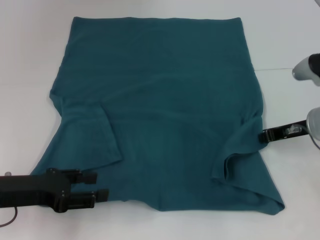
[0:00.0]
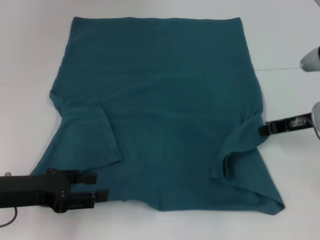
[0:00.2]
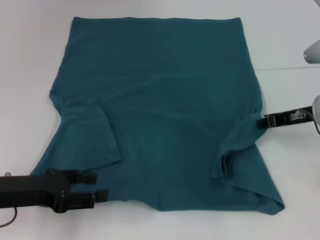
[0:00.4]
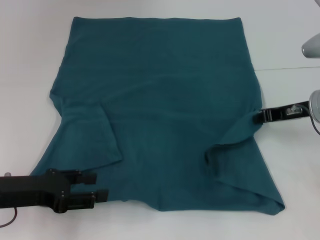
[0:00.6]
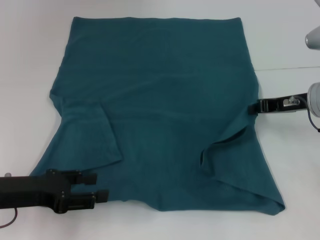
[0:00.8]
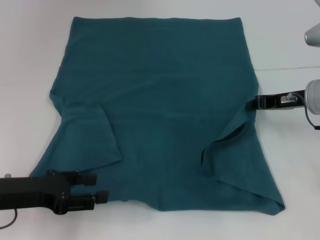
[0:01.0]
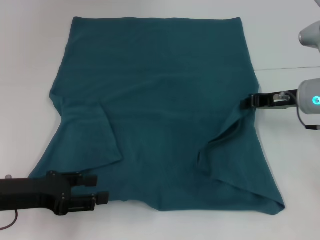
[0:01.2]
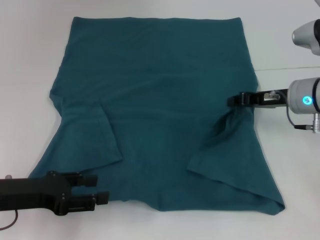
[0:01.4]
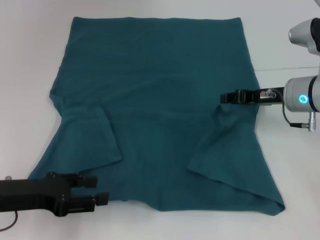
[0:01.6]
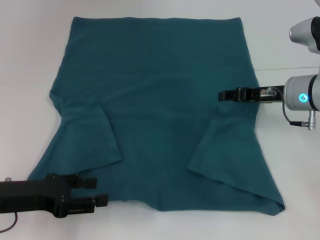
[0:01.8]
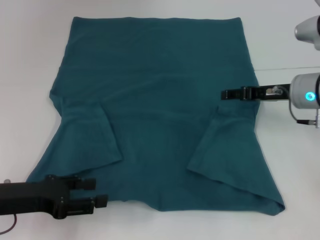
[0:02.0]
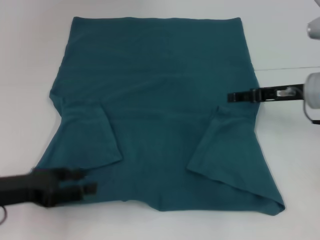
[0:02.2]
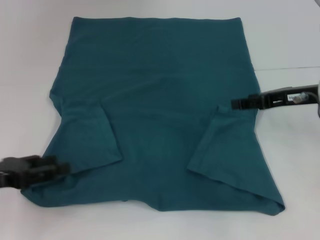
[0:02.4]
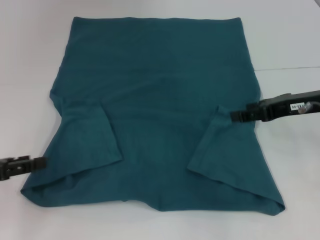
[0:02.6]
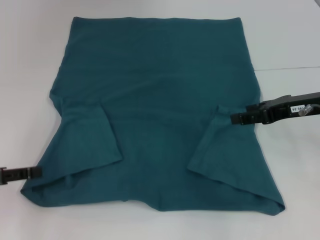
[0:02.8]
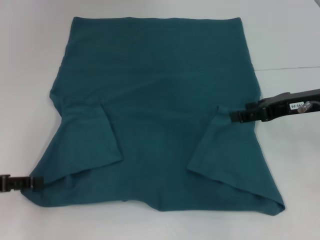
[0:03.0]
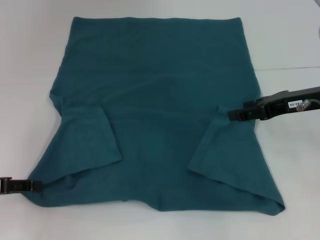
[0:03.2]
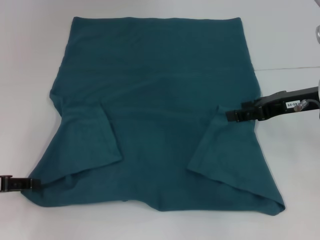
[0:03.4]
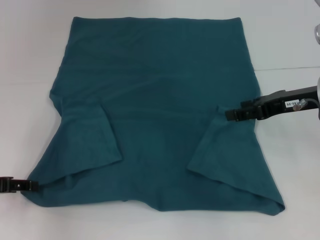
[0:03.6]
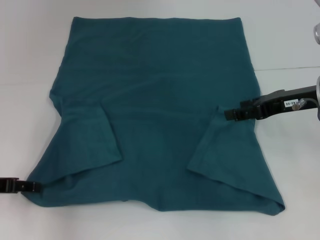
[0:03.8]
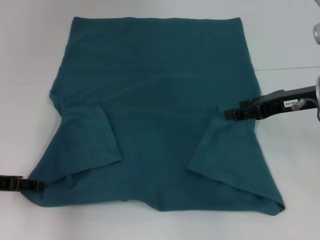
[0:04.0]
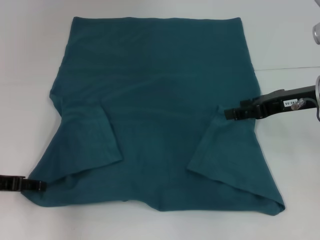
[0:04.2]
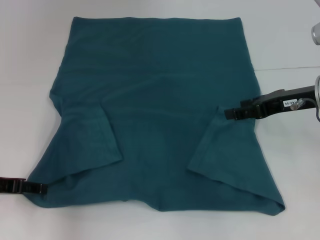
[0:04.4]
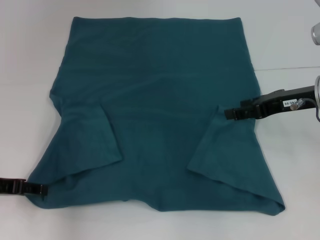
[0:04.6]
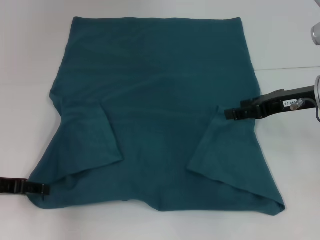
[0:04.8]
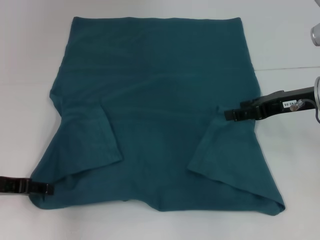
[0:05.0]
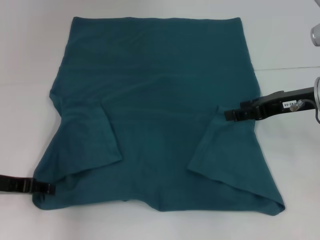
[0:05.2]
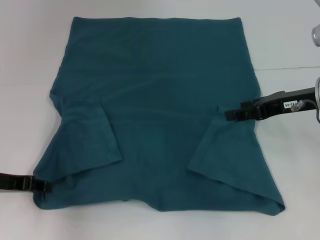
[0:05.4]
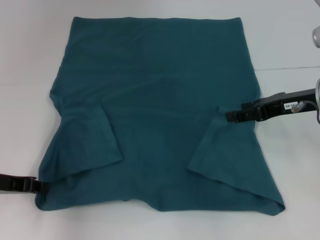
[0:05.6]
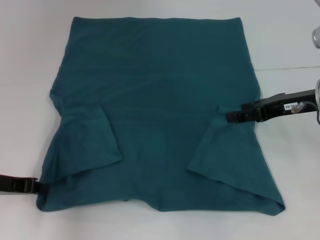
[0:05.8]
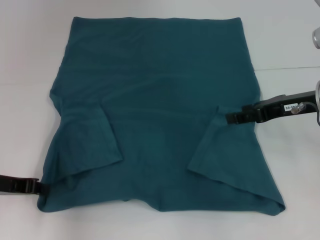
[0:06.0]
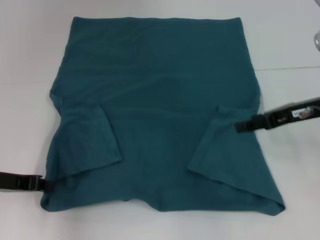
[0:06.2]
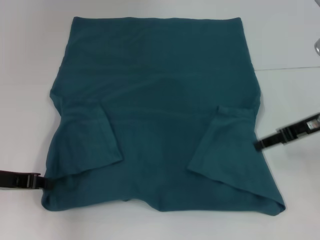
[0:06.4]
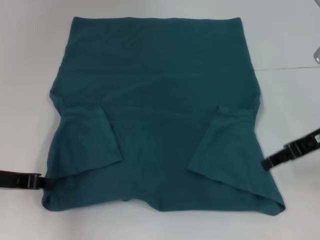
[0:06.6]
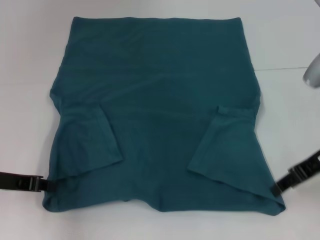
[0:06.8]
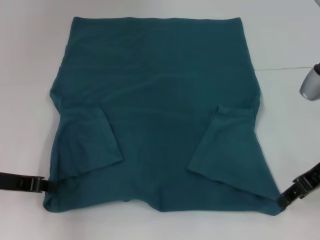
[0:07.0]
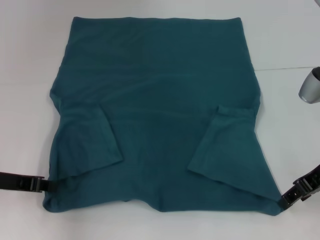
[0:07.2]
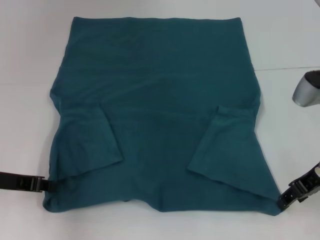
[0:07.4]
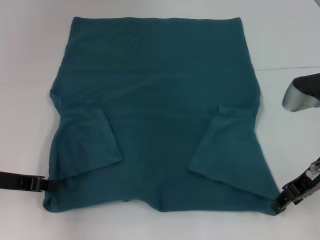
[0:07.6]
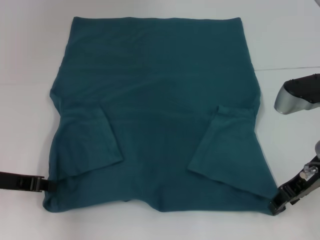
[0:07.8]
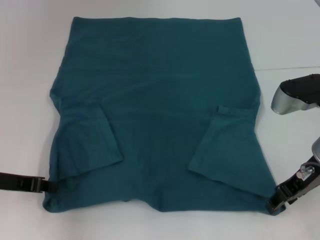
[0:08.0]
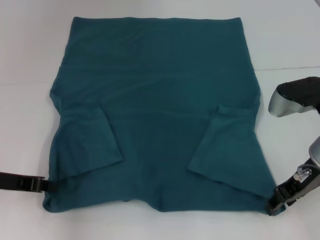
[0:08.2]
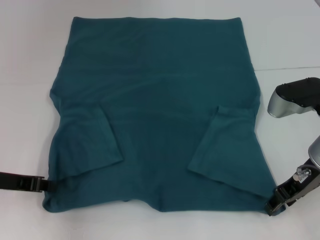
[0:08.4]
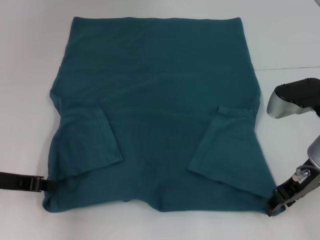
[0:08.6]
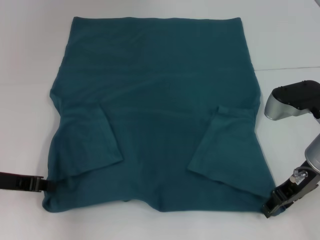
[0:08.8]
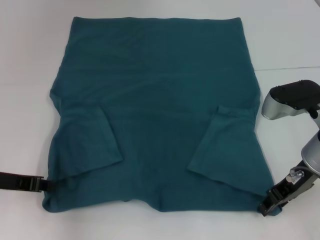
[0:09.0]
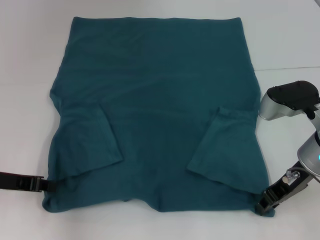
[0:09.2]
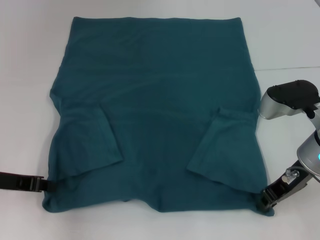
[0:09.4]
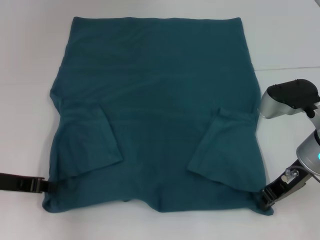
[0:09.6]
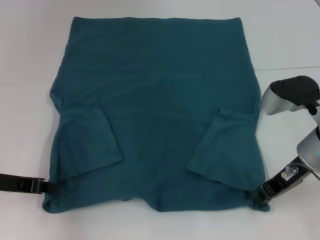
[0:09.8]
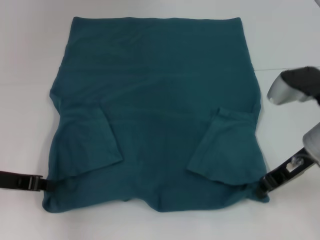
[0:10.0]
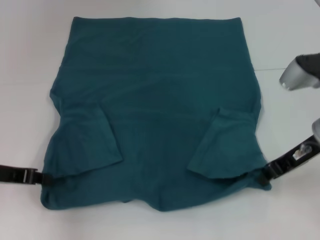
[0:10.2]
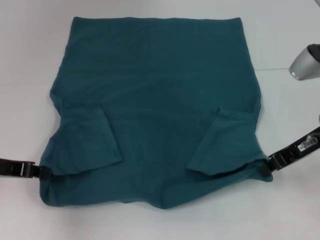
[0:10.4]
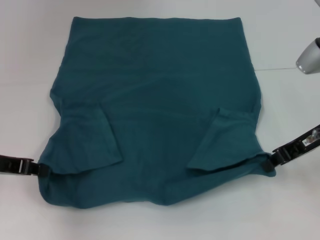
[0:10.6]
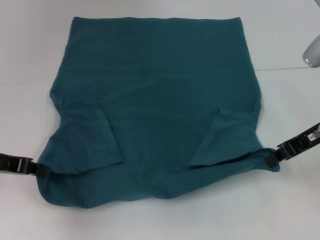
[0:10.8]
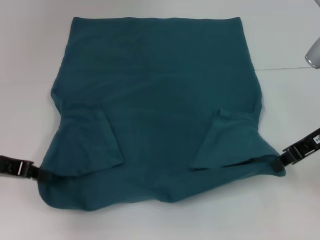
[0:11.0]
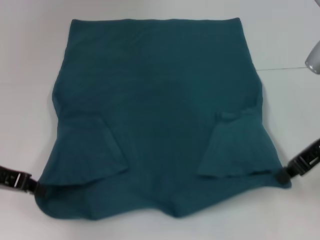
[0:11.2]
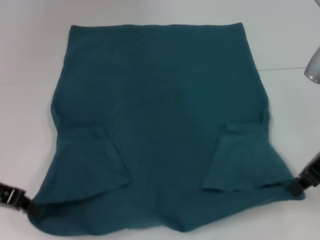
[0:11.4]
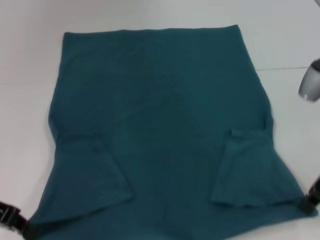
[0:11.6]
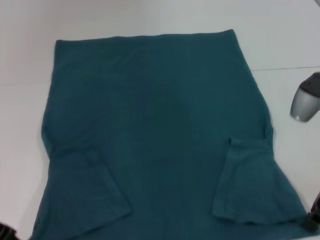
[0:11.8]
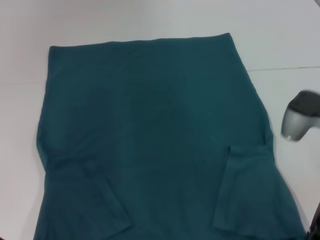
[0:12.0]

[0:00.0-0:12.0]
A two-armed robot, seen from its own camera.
Step, 0:00.0 to 0:02.0: Fold the bottom right sleeve to the right.
Step, 0:02.2 to 0:06.0: Grab the bottom left corner with your left hand.
Step, 0:06.2 to 0:09.8: Grab the bottom right corner with your right hand.
0:00.0 to 0:01.6: The grippers stay close to where they were, moving slightly.
0:01.6 to 0:03.0: The left gripper travels to the left by about 5 cm, while the right gripper shifts by some 5 cm, and opens.
0:03.0 to 0:04.4: The grippers make only small movements.
0:04.4 to 0:06.0: The left gripper closes.
0:07.6 to 0:09.0: The grippers move only a little.
0:09.0 to 0:10.4: The right gripper closes its fingers.

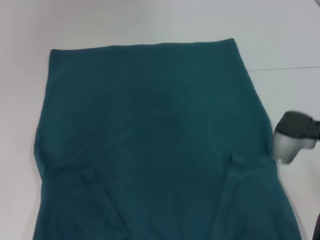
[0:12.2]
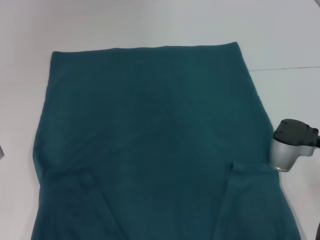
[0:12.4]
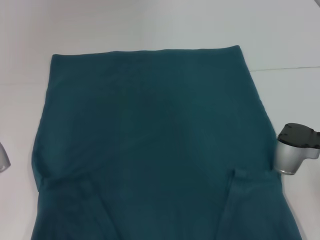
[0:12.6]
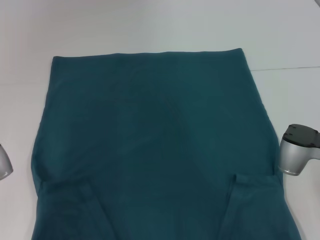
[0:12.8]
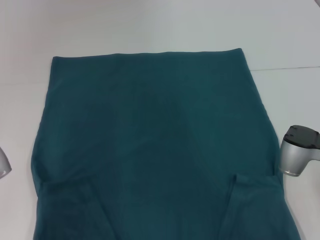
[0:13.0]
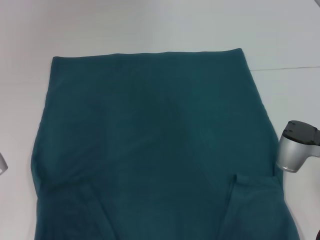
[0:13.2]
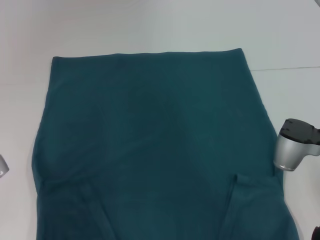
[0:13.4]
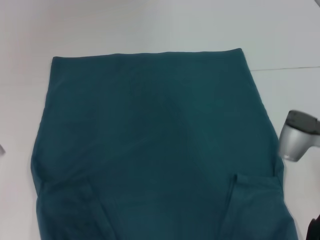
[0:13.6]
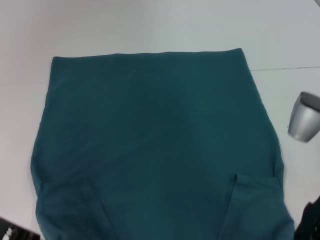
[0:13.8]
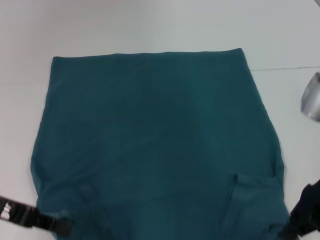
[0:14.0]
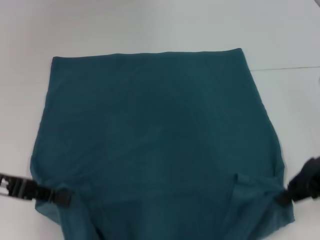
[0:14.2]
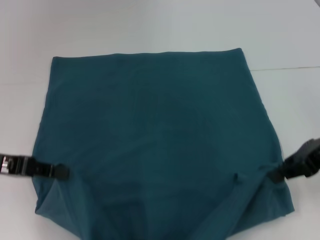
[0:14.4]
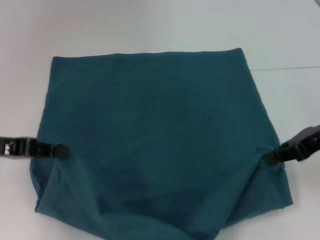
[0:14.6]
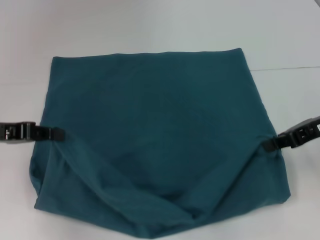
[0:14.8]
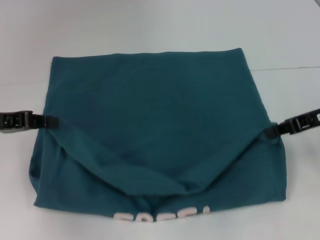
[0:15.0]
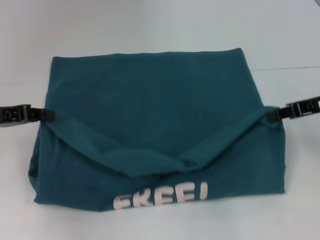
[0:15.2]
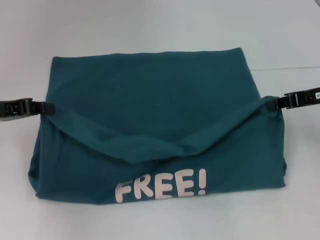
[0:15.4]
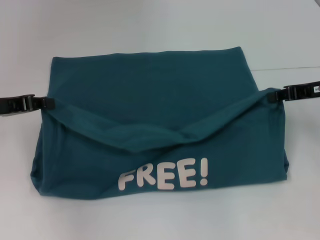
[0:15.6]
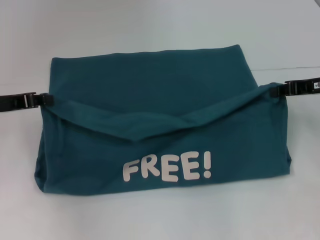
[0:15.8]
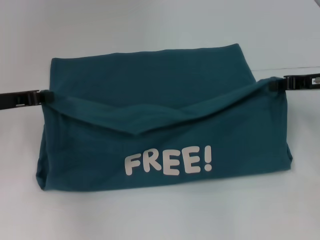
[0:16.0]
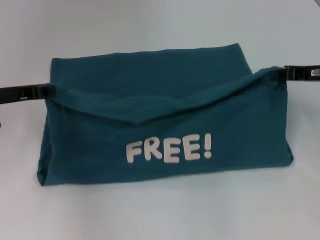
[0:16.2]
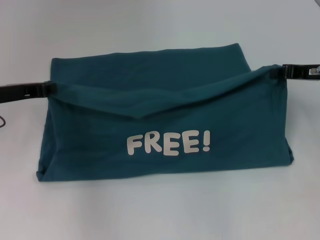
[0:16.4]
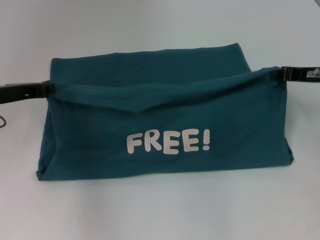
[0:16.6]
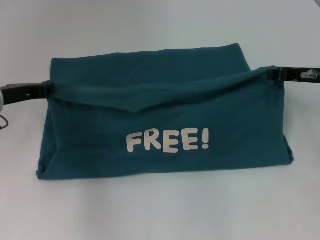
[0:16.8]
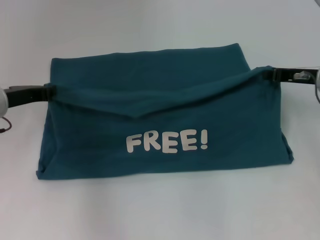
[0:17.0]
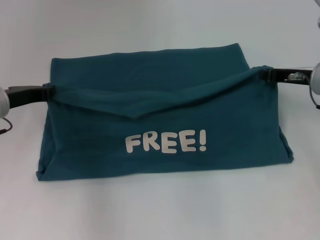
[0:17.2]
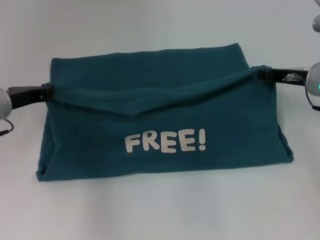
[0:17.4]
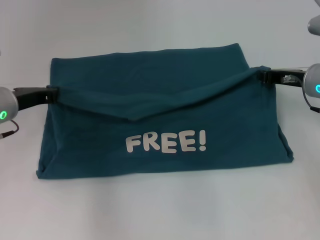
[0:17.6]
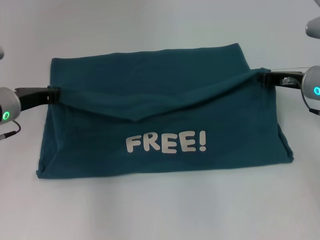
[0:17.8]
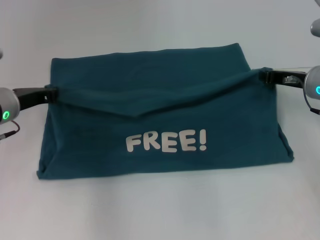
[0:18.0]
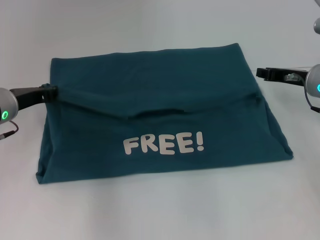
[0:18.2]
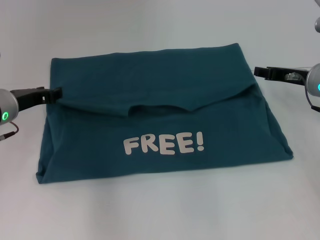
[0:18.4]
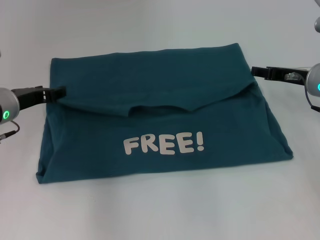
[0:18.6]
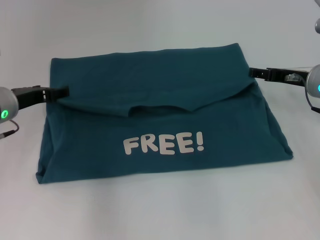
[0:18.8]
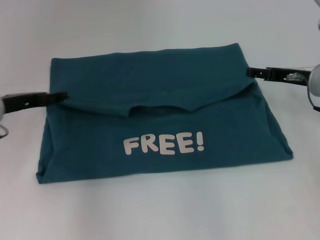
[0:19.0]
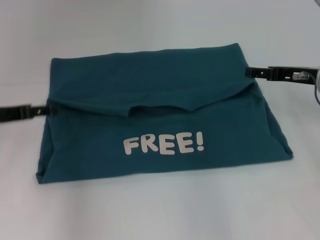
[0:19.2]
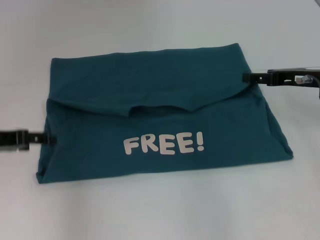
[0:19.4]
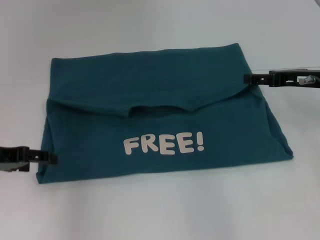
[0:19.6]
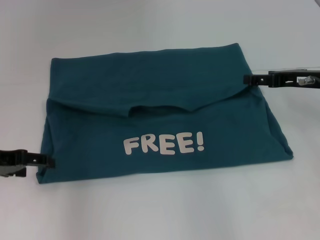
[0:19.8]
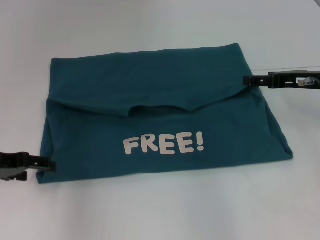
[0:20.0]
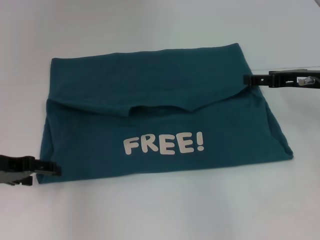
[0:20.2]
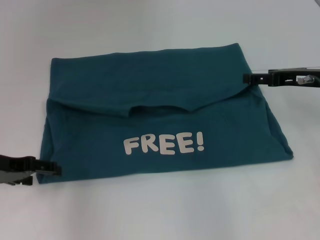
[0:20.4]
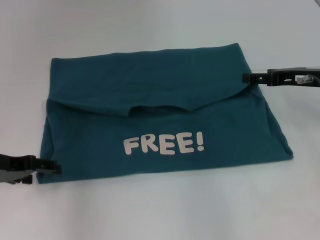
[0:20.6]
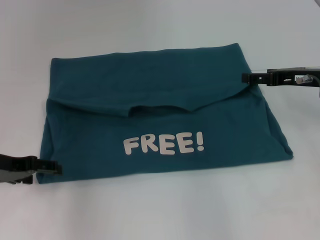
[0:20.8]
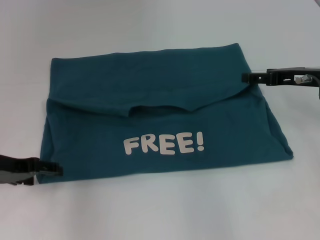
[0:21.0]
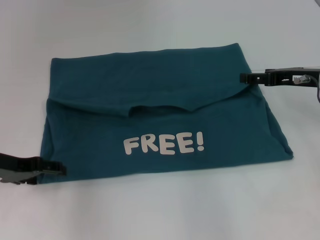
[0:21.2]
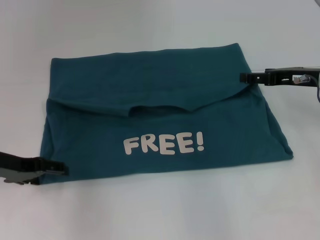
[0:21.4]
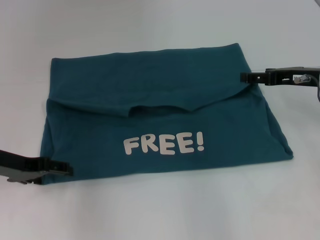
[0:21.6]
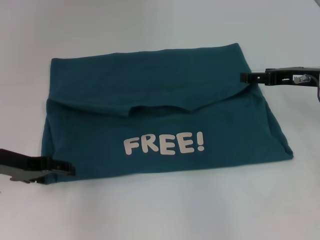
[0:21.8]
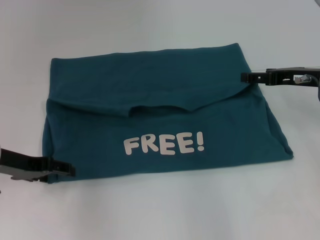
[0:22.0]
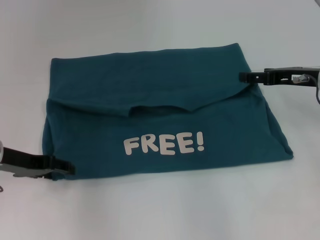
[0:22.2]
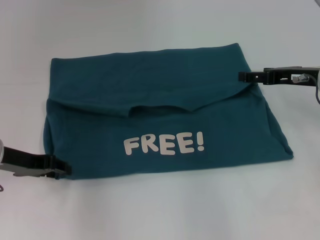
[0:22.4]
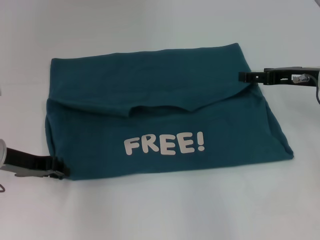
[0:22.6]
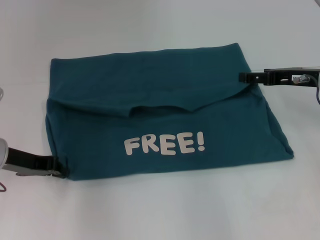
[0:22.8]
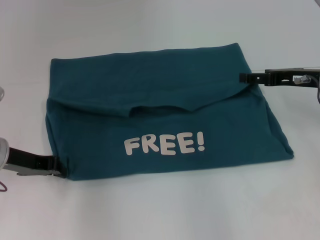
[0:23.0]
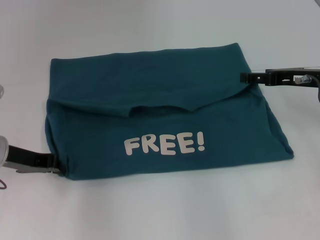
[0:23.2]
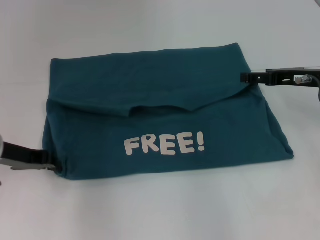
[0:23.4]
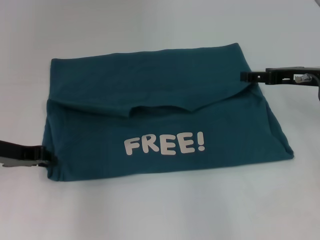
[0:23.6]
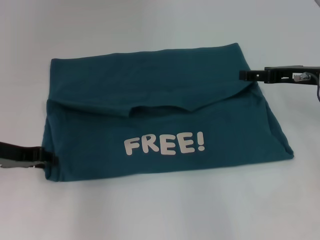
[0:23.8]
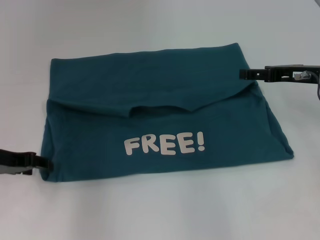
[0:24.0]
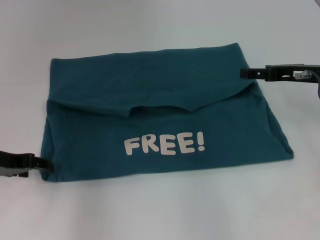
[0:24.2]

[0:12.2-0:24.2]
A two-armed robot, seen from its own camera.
Step, 0:12.2 to 0:18.4: Fold the clothes to the left.
Step, 0:12.2 to 0:18.4: Fold the clothes to the right.
0:13.8 to 0:15.2: The right gripper goes about 10 cm to the right and forward, while the left gripper heads forward, covering about 5 cm.
0:15.2 to 0:16.6: The right gripper moves about 5 cm. The left gripper shifts by roughly 5 cm.
0:16.6 to 0:18.2: The grippers move only a little.
0:18.2 to 0:19.8: The right gripper opens; the left gripper shifts about 10 cm backward and to the left, and opens its fingers.
0:19.8 to 0:21.2: The grippers stay close to where they were, moving slightly.
0:21.2 to 0:22.6: The left gripper closes.
0:22.6 to 0:24.2: The left gripper closes, then reopens.
